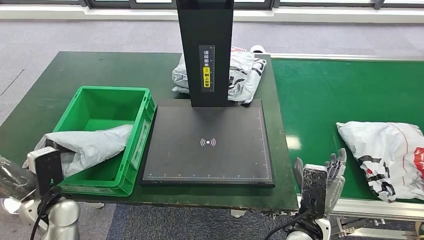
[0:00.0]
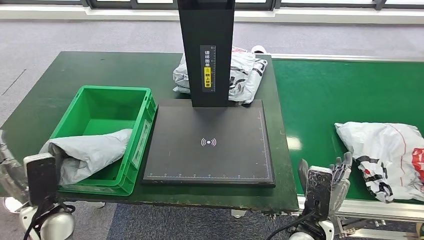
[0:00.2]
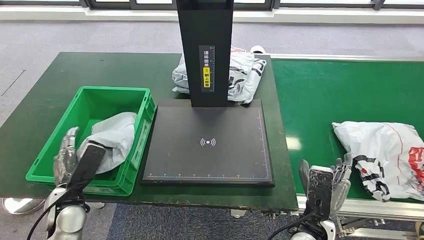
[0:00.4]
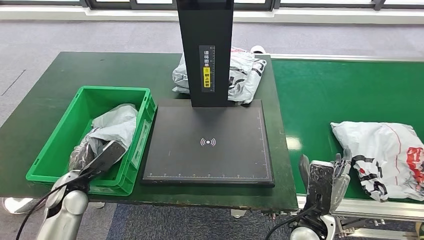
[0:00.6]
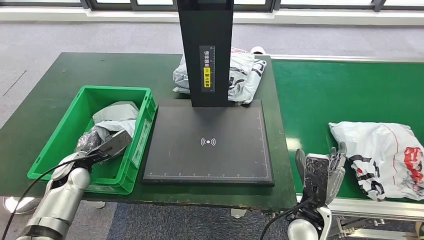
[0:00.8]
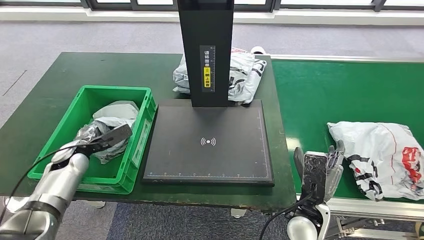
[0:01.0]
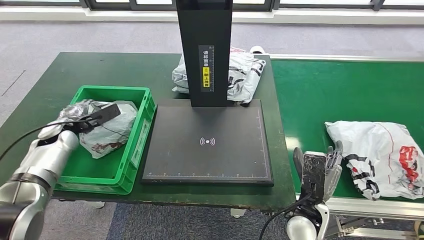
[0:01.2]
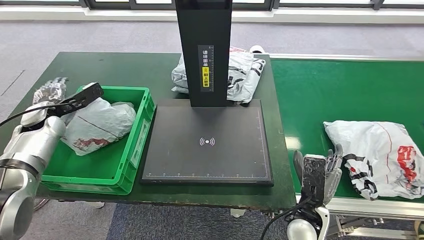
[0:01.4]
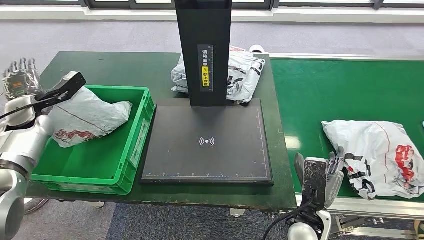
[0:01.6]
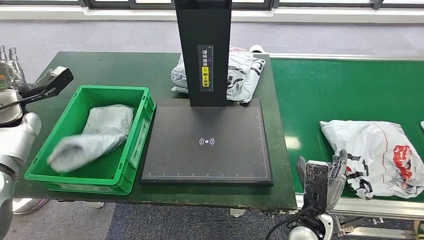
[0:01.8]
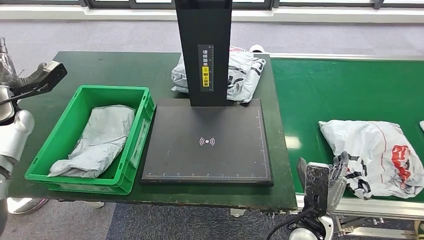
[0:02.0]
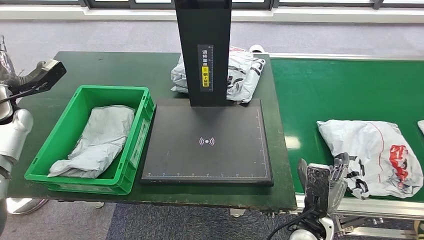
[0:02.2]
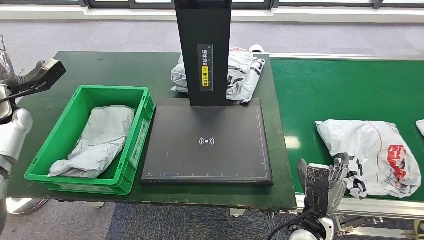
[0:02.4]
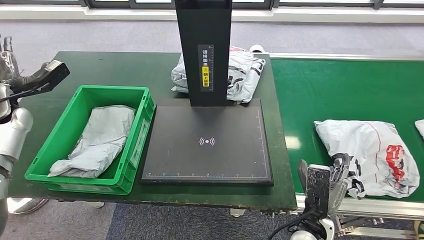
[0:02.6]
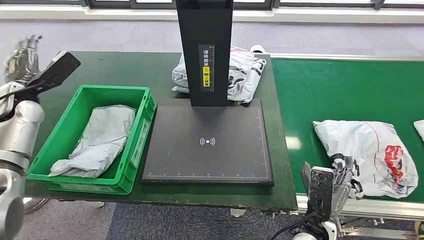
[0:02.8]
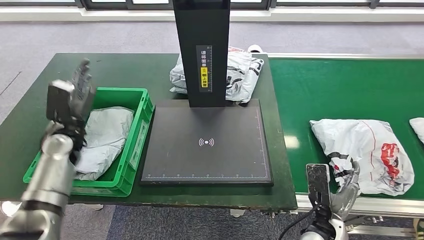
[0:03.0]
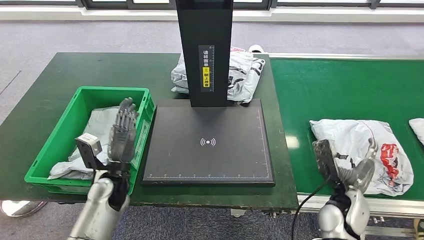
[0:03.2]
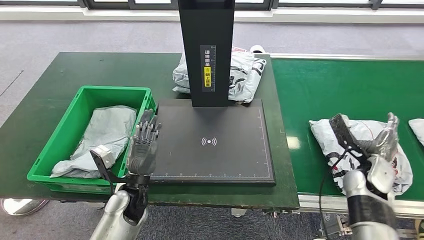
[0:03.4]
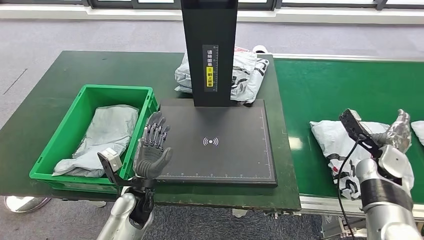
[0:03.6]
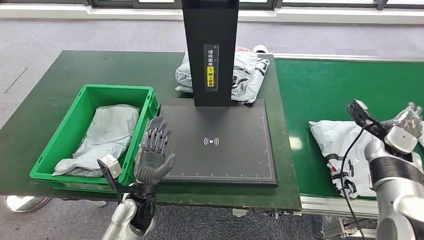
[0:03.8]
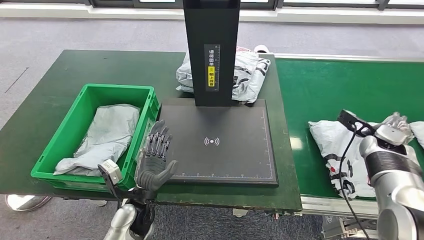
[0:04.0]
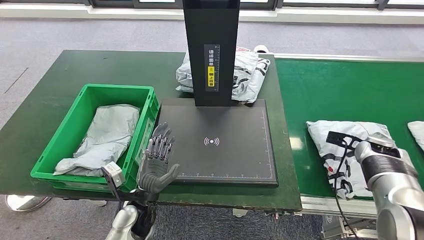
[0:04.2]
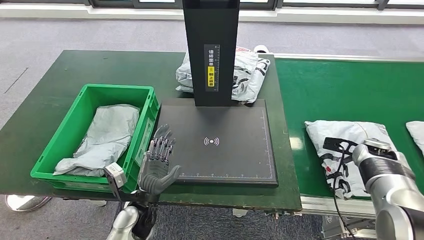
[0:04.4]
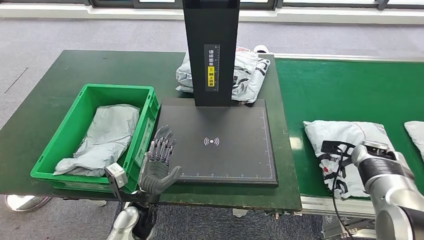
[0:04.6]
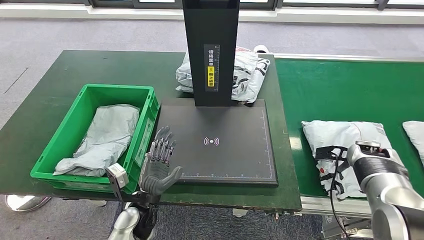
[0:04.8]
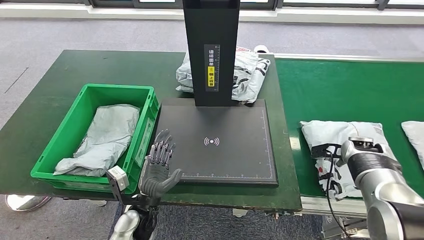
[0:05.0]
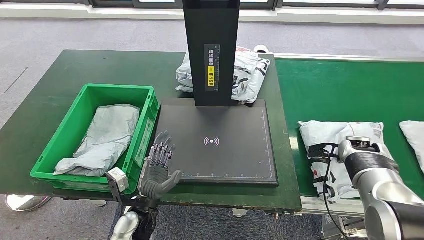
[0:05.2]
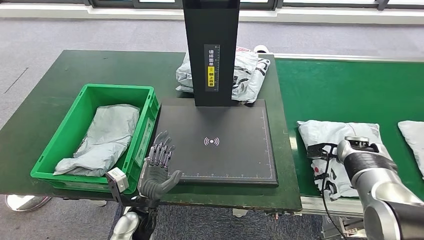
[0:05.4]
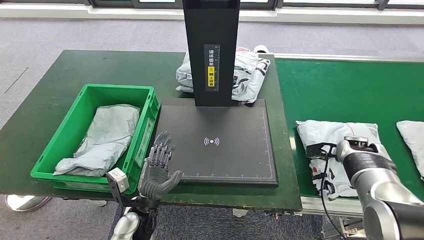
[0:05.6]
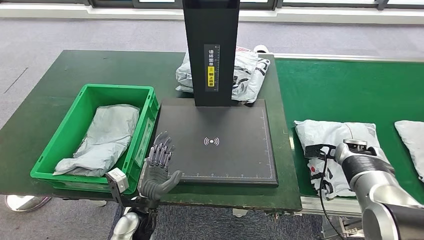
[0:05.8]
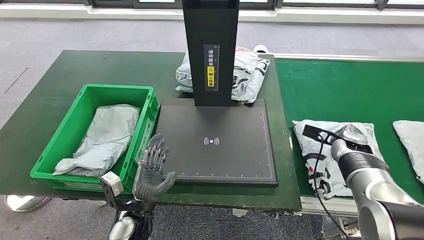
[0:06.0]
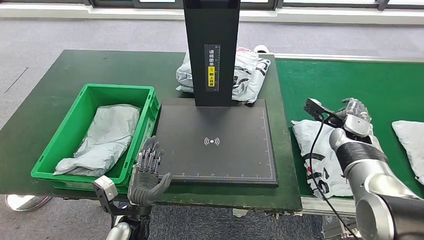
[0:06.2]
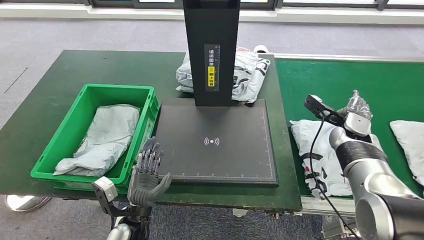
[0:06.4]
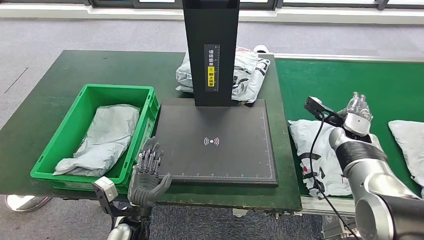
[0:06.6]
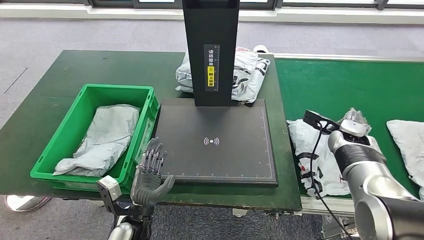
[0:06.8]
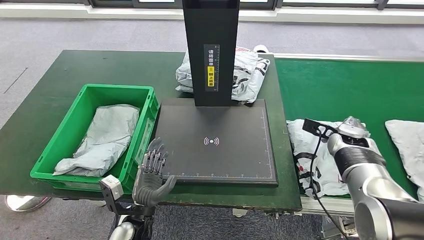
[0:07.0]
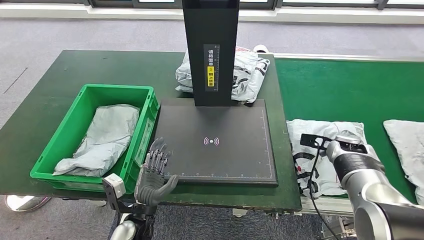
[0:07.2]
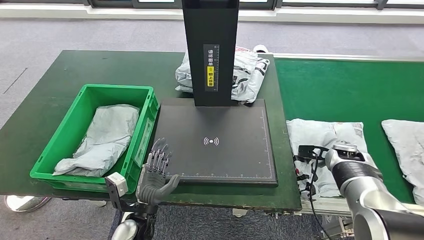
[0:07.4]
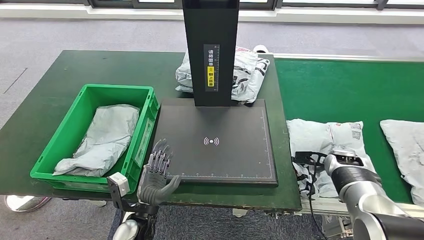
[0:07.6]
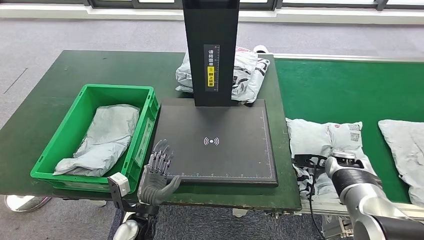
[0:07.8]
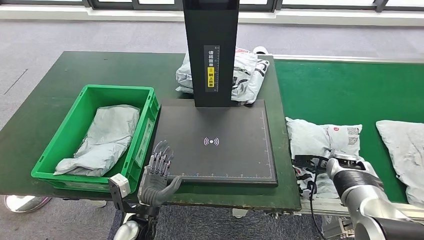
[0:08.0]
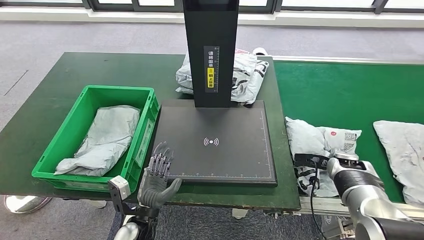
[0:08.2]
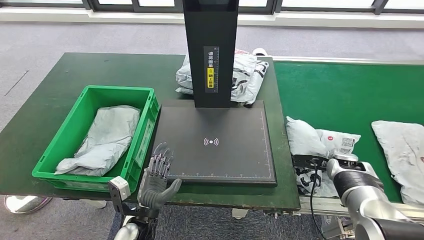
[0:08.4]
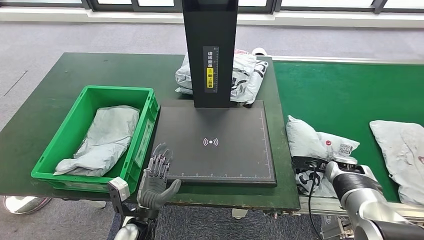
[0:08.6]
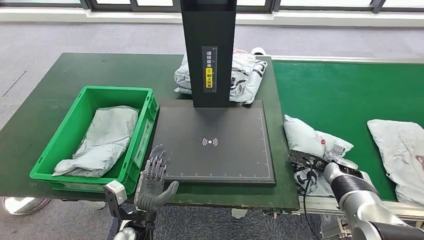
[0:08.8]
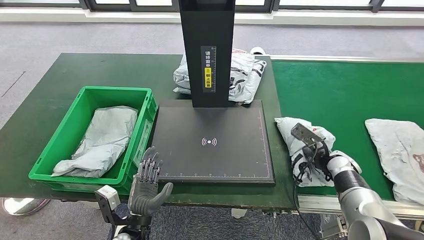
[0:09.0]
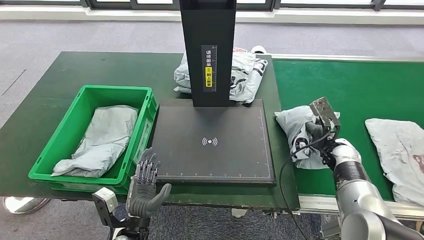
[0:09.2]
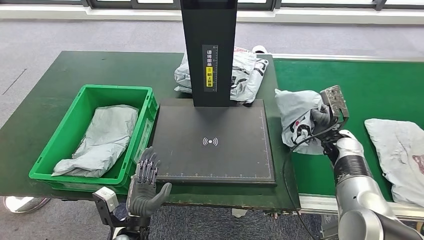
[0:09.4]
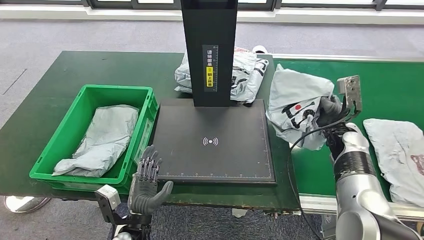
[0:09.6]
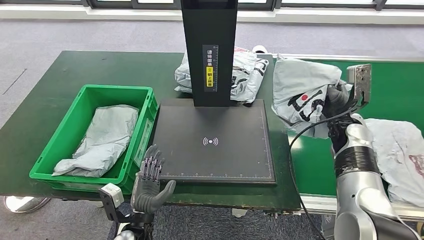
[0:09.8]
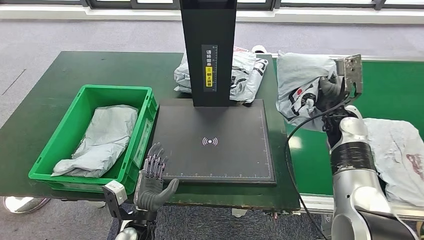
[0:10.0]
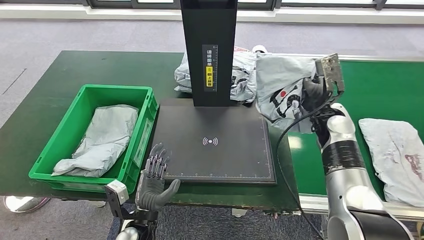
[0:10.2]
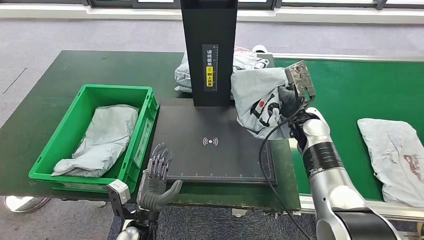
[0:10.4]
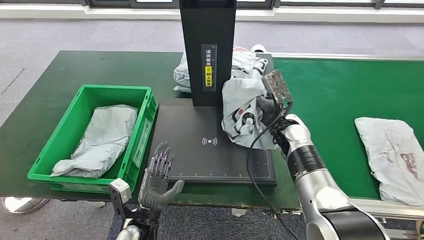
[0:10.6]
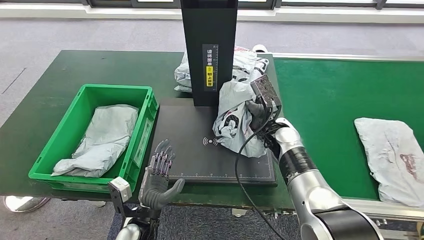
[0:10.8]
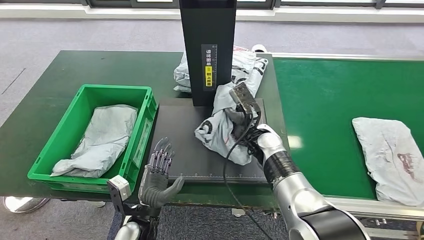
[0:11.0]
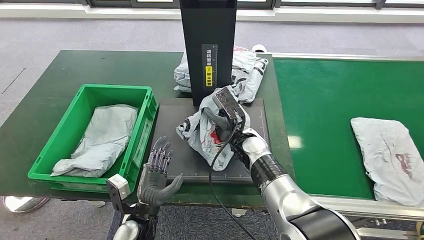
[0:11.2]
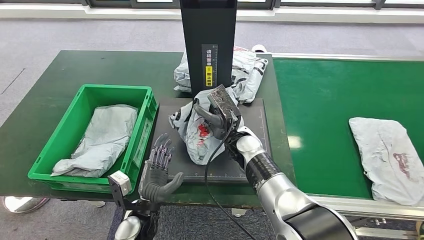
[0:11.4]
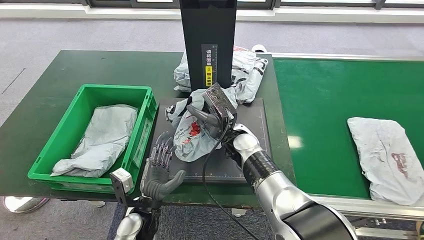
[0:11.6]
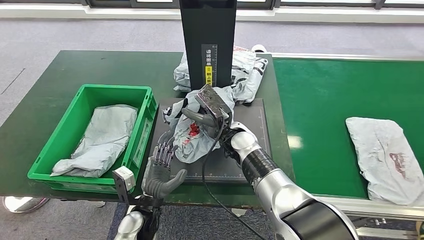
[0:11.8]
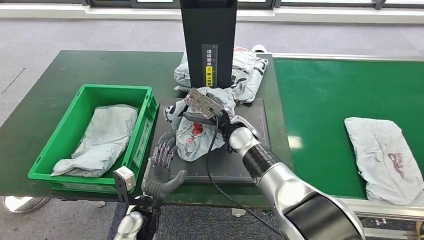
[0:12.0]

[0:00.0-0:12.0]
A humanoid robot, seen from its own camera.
Step, 0:00.0 to 0:02.4: Put the parcel inside the courier box.
Step, 0:02.6 to 0:09.2: Pick up the parcel from the conveyor belt.
0:04.4 to 0:06.0: The right hand heads to the left, covering some 5 cm.
0:06.0 to 0:07.6: The right hand shifts by some 5 cm.

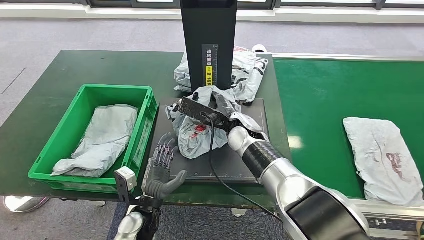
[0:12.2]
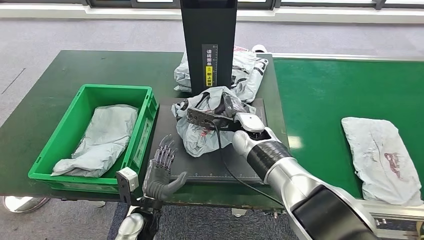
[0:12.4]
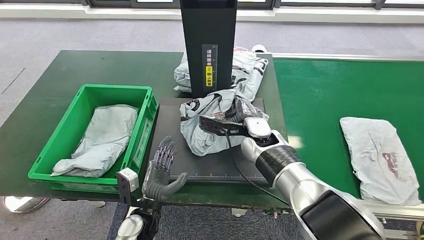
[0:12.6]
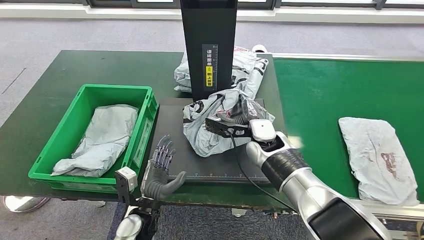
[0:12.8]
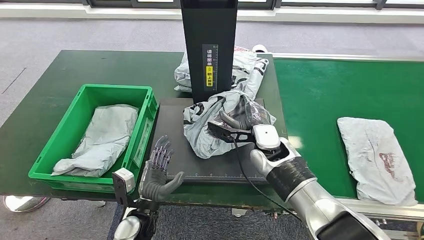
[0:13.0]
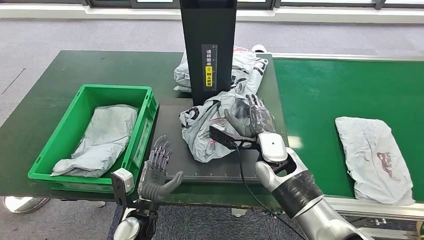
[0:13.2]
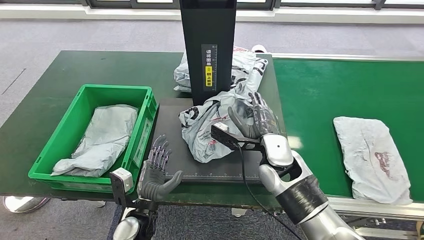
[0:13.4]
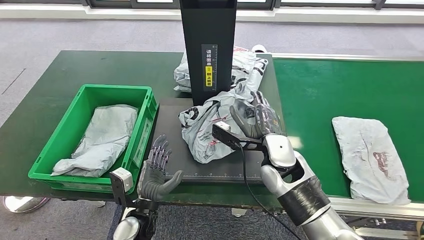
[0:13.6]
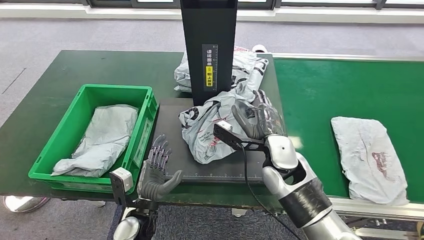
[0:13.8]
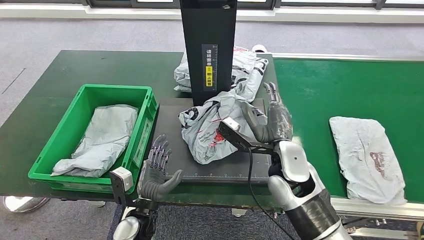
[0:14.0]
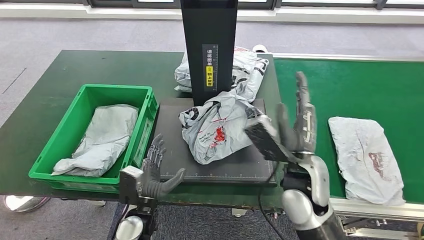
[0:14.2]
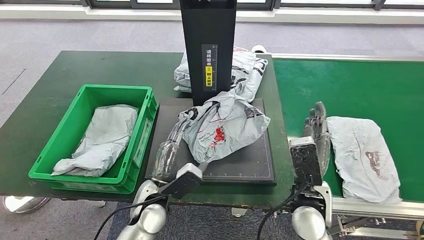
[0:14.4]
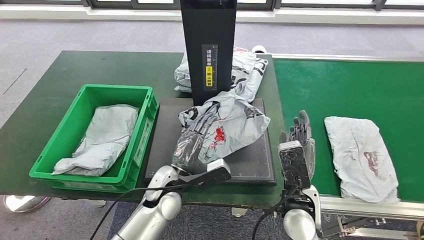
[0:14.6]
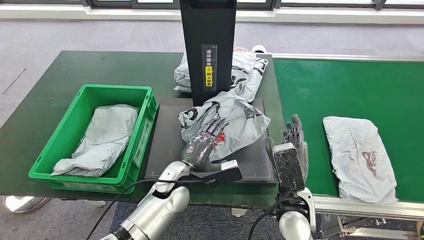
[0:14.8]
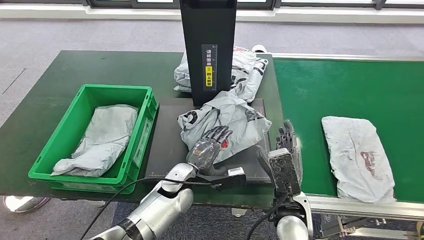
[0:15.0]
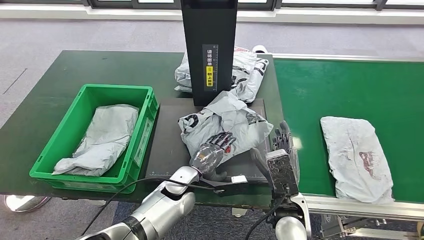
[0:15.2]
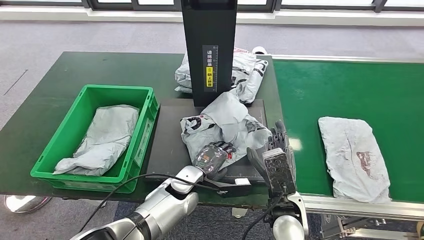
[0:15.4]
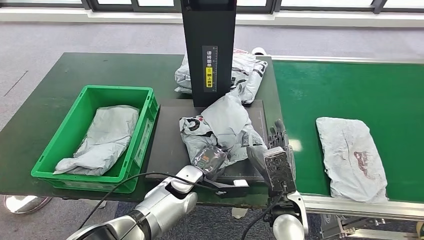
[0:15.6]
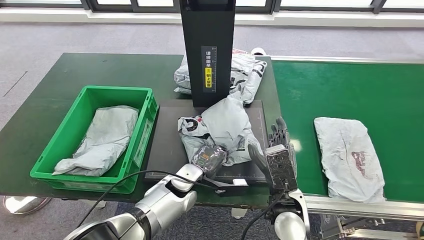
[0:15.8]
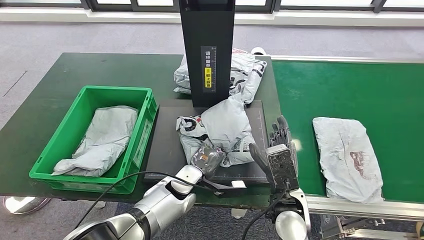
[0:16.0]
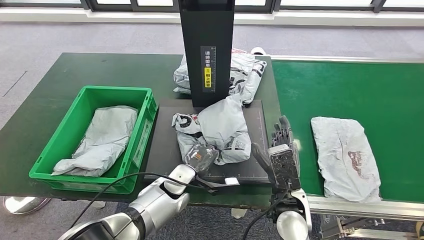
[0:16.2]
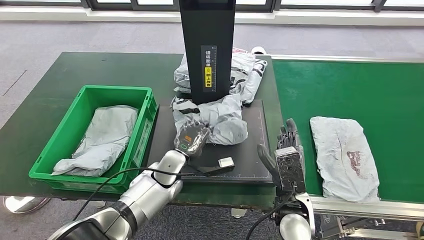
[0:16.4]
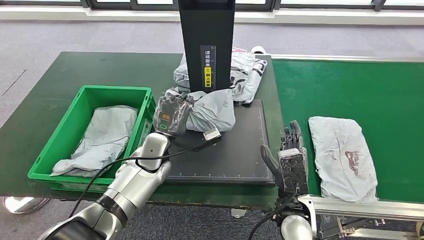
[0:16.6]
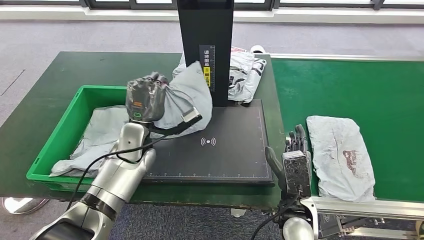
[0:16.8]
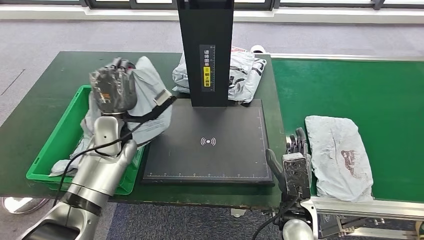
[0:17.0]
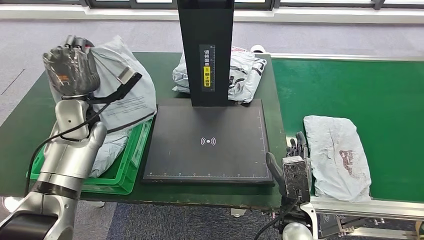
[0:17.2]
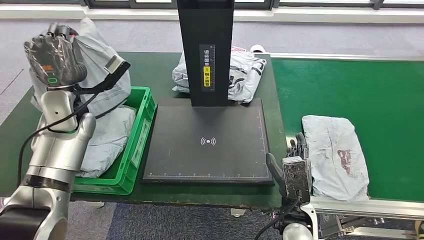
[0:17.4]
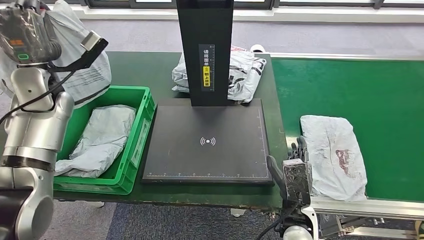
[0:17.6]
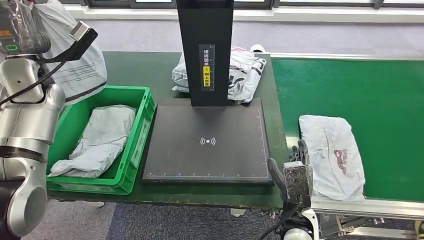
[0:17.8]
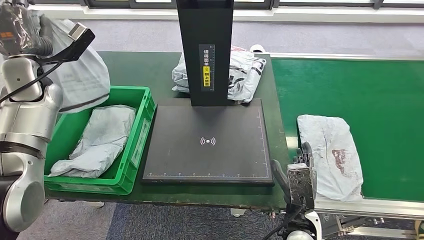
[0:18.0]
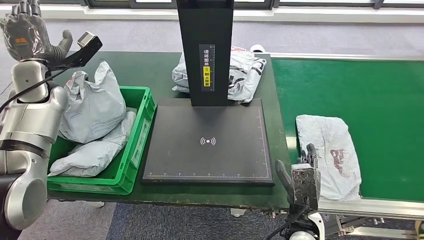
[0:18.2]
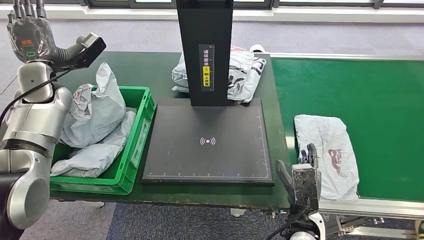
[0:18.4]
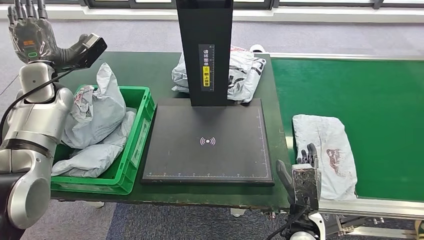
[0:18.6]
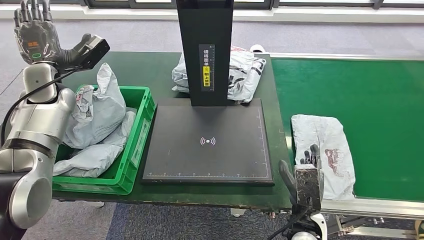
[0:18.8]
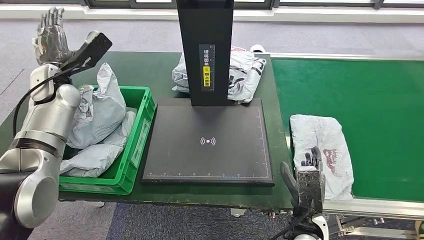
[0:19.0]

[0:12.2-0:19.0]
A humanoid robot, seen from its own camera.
Step, 0:12.2 to 0:15.0: Place the parcel onto the inbound machine.
Step, 0:15.4 to 0:16.8: Pick up the parcel from the inbound machine.
Step, 0:17.0 to 0:18.8: Place the parcel into the delivery box.
0:12.2 to 0:13.6: The right hand moves to the right and backward, approximately 10 cm.
0:13.6 to 0:15.0: The right hand moves backward and downward, approximately 10 cm. Meanwhile the left hand shifts some 15 cm forward and to the right.
